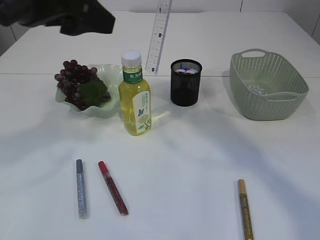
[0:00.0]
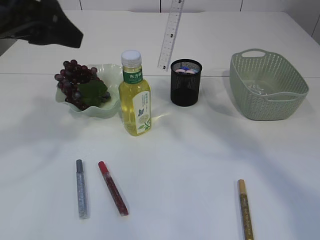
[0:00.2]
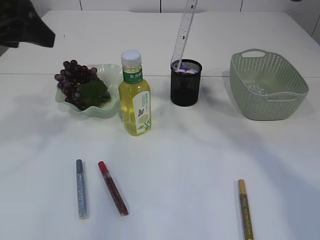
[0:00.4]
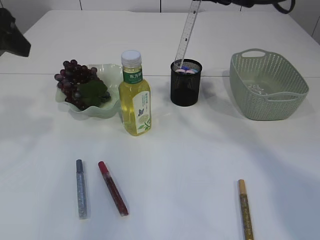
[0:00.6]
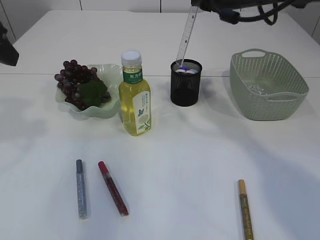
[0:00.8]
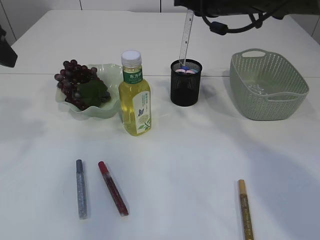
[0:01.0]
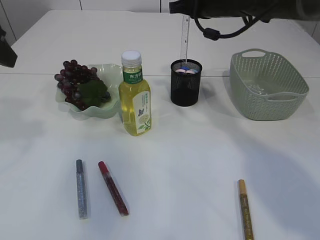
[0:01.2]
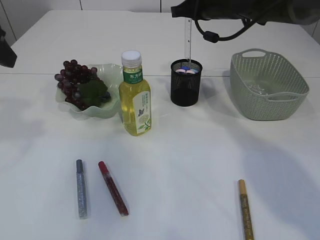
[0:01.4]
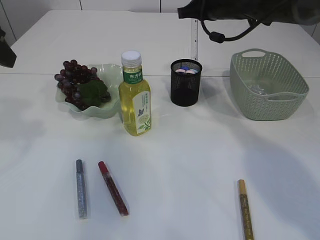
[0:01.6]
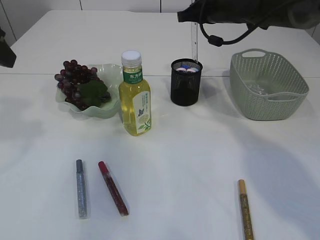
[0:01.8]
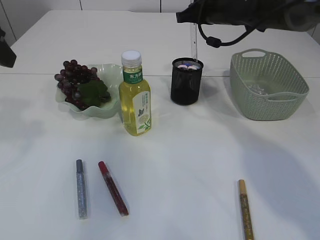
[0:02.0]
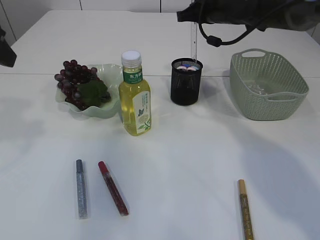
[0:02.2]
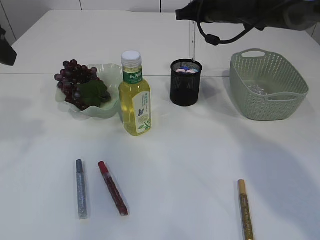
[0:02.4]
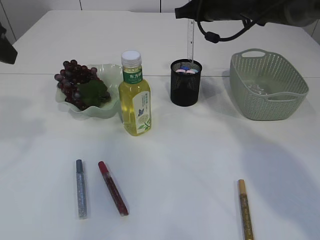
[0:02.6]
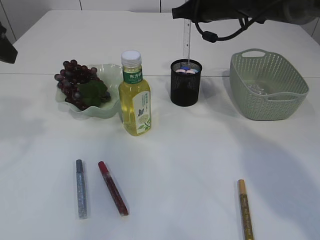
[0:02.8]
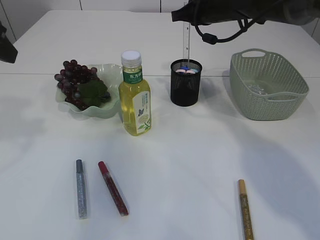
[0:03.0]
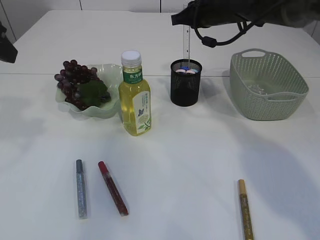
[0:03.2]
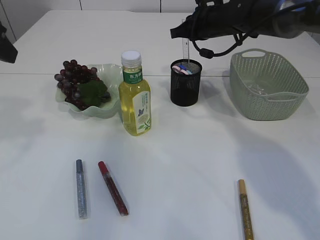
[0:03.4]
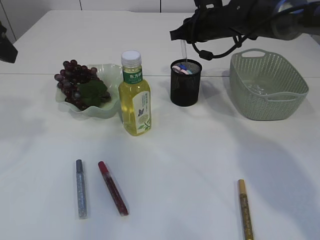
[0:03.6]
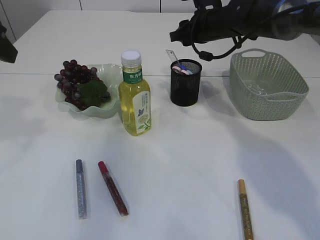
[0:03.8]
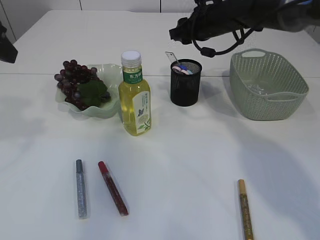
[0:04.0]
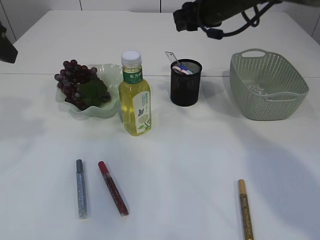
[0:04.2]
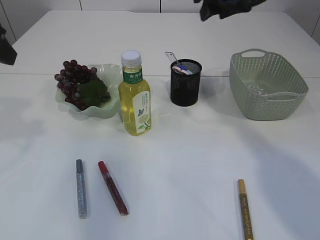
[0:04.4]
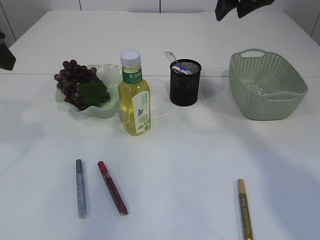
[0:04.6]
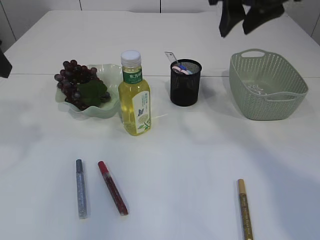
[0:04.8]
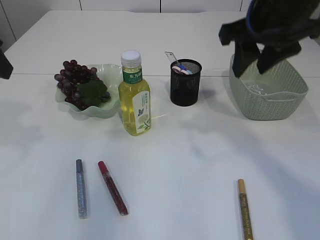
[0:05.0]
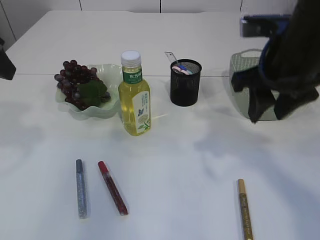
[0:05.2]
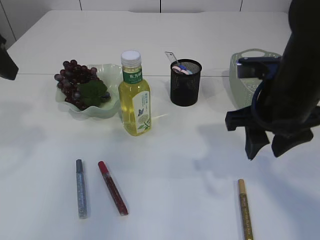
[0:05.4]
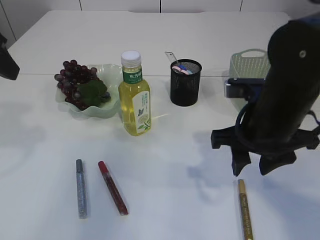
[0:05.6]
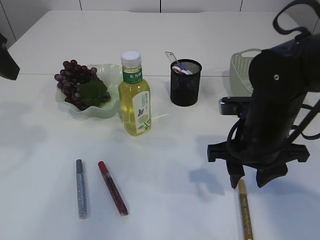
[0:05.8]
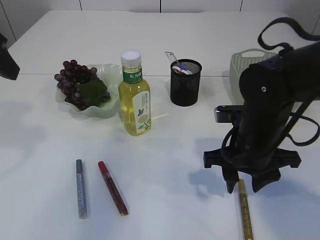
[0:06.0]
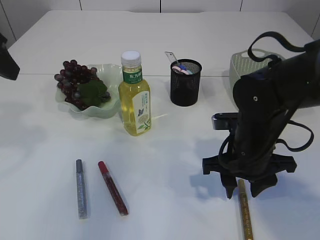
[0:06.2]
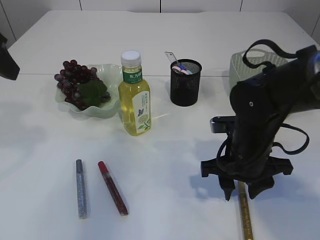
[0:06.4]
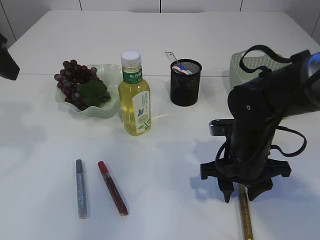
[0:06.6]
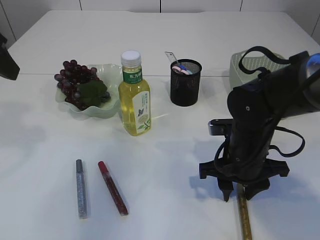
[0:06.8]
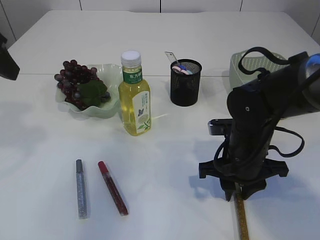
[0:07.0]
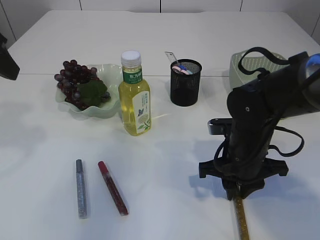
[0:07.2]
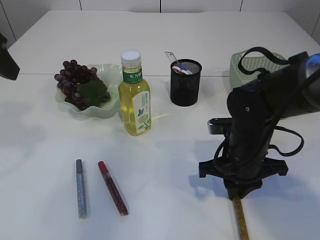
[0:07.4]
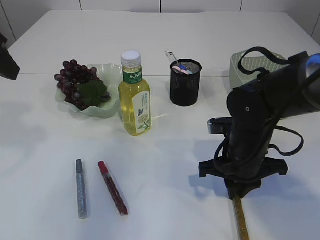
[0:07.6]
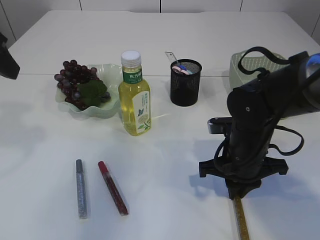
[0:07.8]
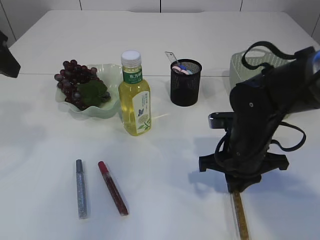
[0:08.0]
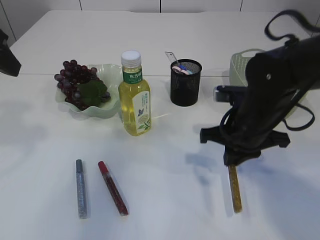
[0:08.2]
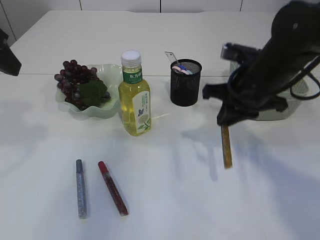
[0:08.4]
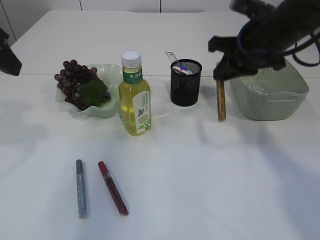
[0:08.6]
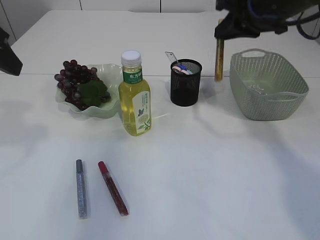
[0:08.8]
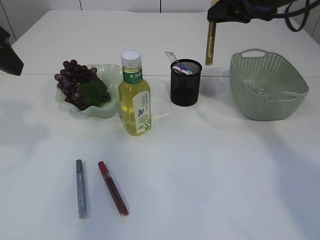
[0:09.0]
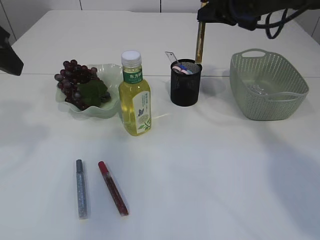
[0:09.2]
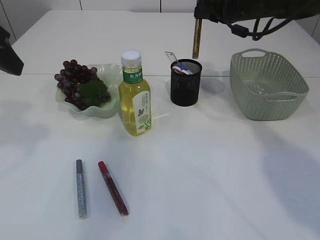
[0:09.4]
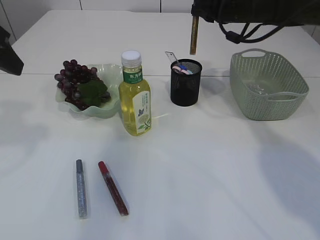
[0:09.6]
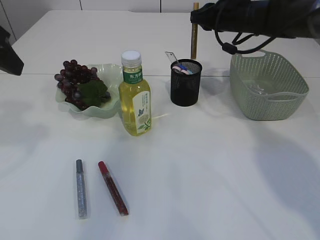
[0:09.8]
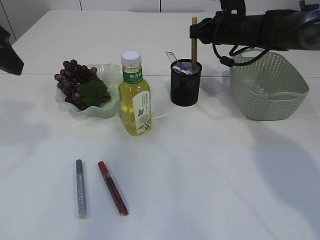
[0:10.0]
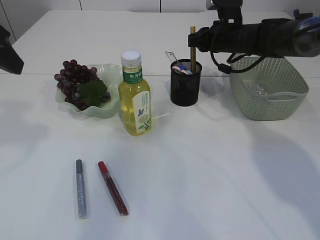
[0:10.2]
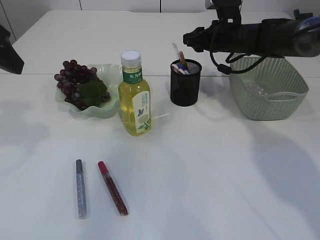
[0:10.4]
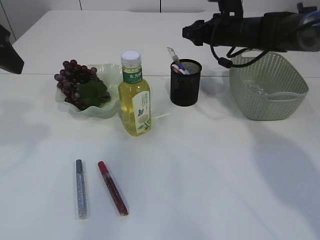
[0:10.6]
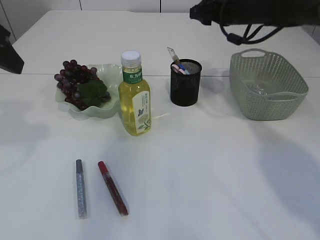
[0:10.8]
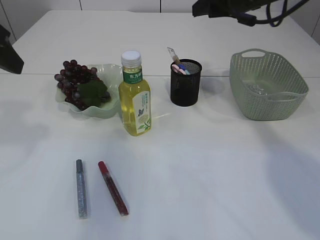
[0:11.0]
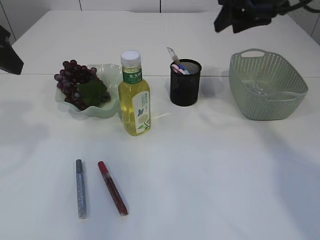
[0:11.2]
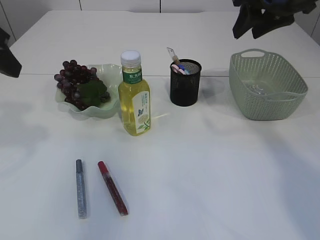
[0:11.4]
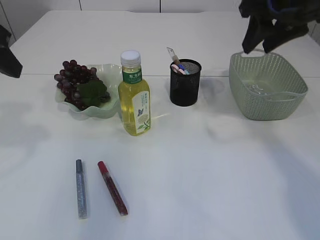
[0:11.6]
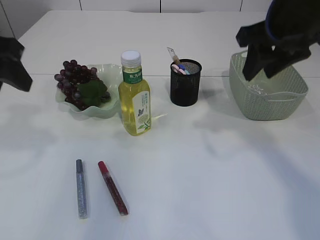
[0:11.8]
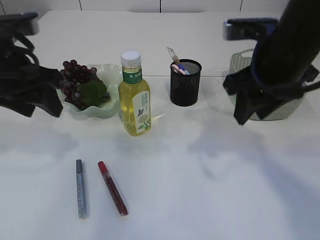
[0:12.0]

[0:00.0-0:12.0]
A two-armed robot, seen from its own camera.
Step, 0.0 to 4.0 s: Place the ruler into the pen holder.
Step, 4.2 to 8.2 s: Pick up the pen with right arm.
Step, 8.4 to 10.6 s: Place the pen into the pen holder.
0.0 to 1.6 s: The right gripper goes roughly 20 cm forward and downward. The left gripper is displaced to the left by roughly 10 cm.
1.6 to 3.0 s: The grippers move only a little.
3.0 to 4.4 s: The right gripper heads backward and upward, covering roughly 10 cm, and opens its fingers.
4.4 to 6.0 s: The right gripper goes approximately 25 cm downward and backward.
6.0 to 7.6 s: The right gripper closes up.
7.6 to 9.0 s: The right gripper goes some 25 cm upward and forward.
9.0 to 10.4 s: The right gripper travels downward and forward by some 15 cm, and opens.
10.4 to 12.0 s: The left gripper shifts roughly 5 cm downward. The right gripper goes approximately 25 cm backward and upward.

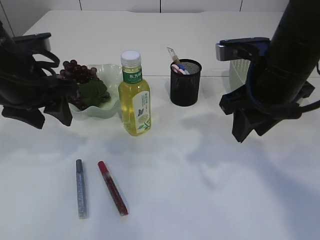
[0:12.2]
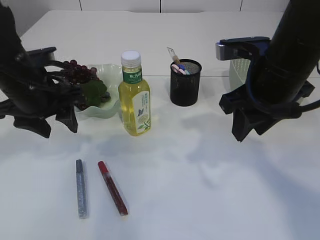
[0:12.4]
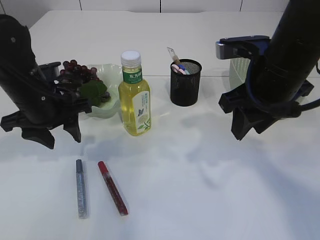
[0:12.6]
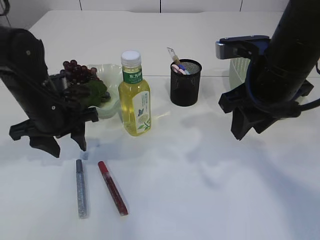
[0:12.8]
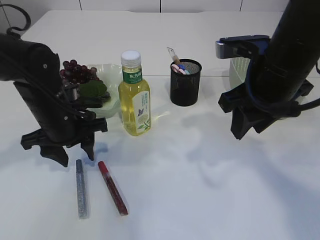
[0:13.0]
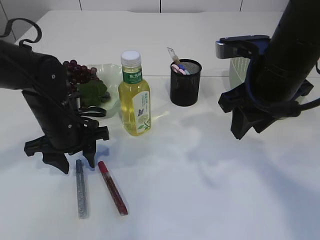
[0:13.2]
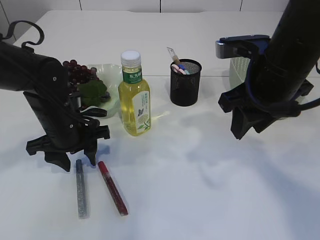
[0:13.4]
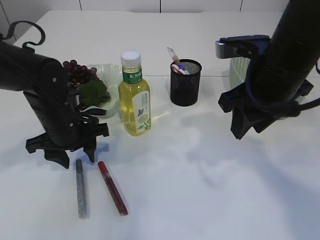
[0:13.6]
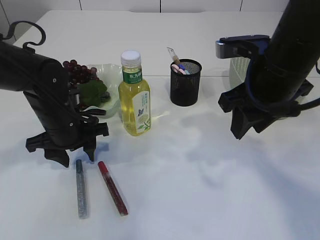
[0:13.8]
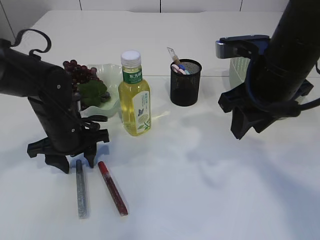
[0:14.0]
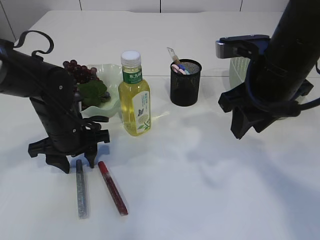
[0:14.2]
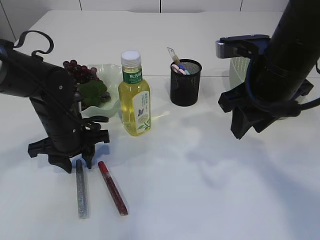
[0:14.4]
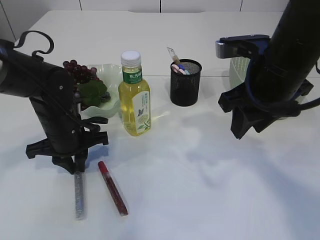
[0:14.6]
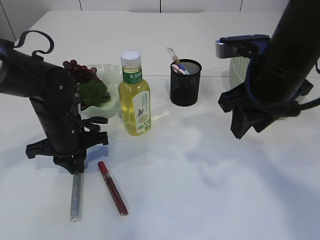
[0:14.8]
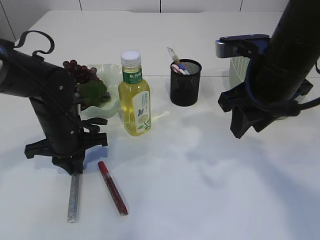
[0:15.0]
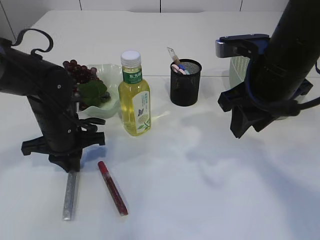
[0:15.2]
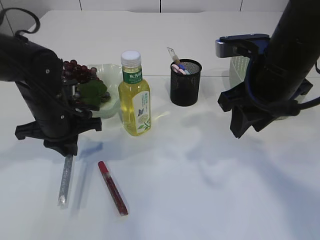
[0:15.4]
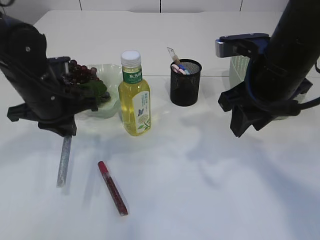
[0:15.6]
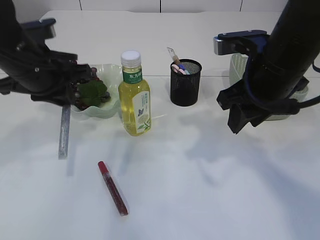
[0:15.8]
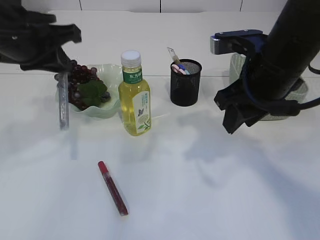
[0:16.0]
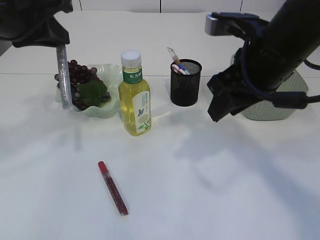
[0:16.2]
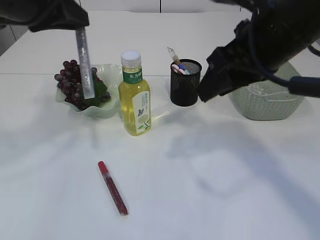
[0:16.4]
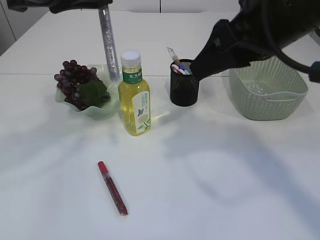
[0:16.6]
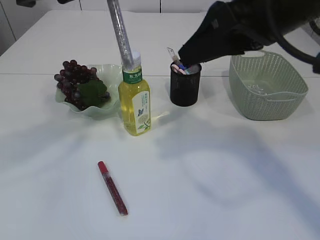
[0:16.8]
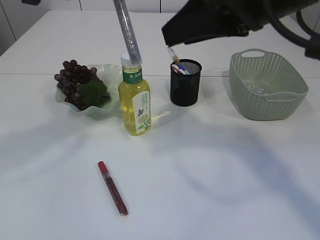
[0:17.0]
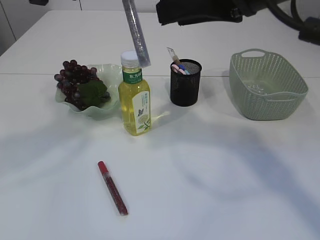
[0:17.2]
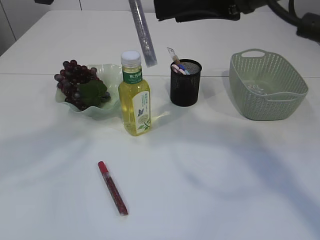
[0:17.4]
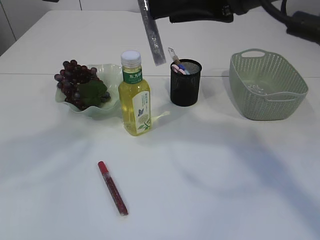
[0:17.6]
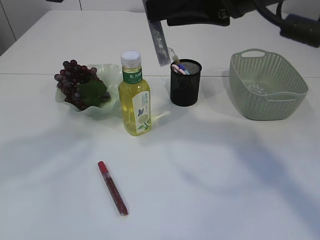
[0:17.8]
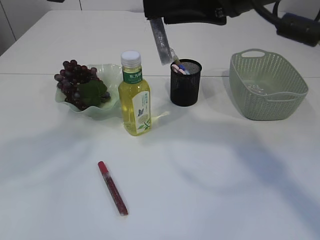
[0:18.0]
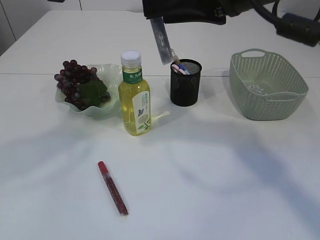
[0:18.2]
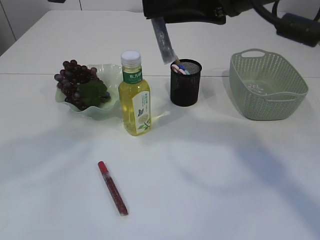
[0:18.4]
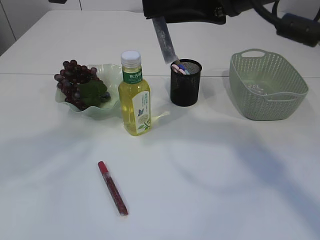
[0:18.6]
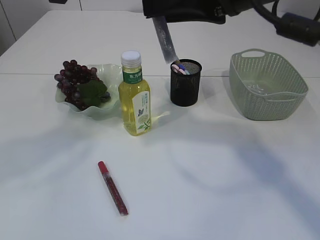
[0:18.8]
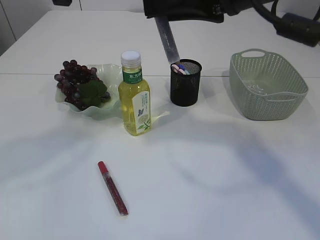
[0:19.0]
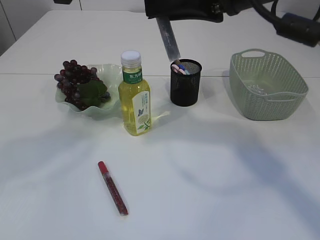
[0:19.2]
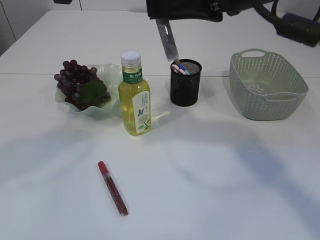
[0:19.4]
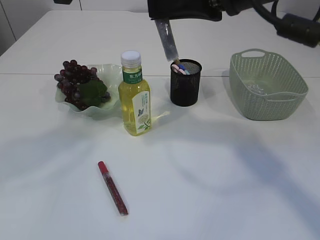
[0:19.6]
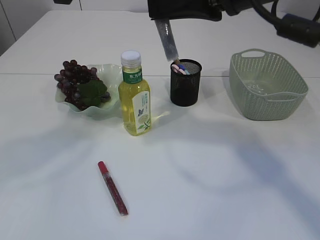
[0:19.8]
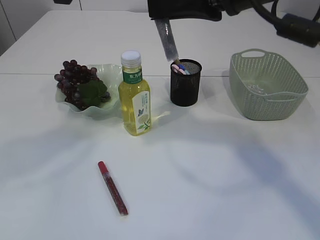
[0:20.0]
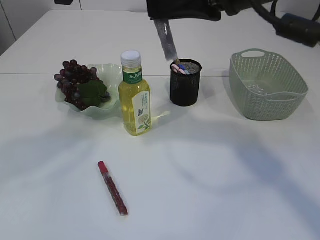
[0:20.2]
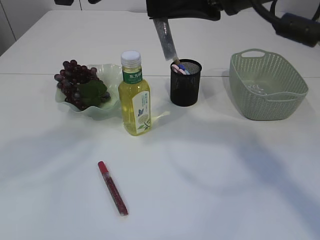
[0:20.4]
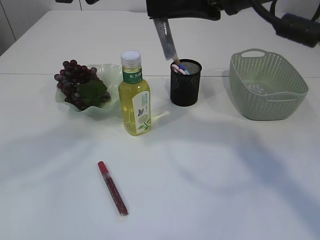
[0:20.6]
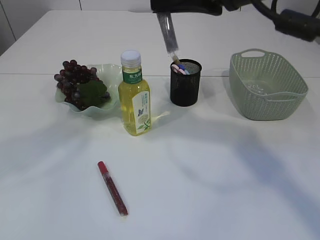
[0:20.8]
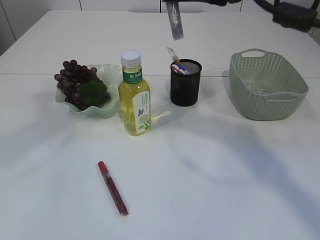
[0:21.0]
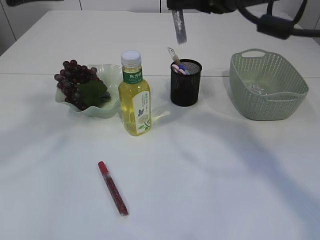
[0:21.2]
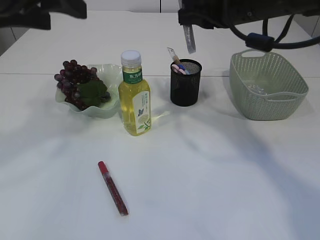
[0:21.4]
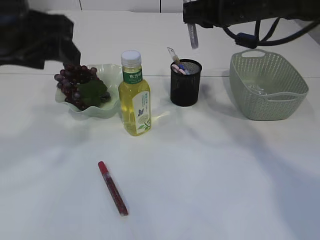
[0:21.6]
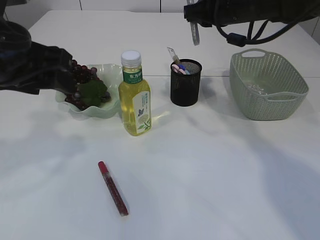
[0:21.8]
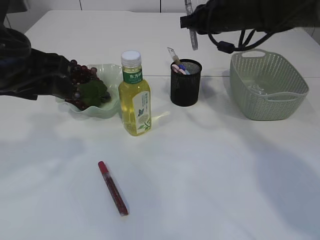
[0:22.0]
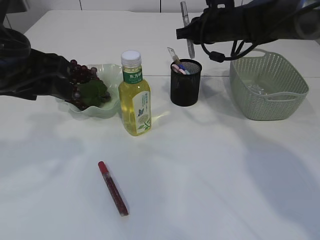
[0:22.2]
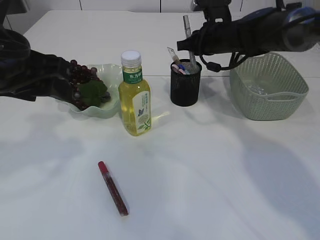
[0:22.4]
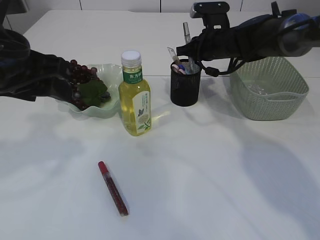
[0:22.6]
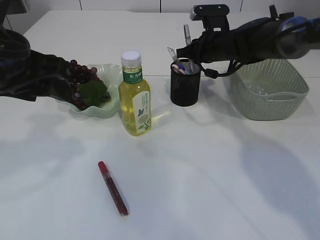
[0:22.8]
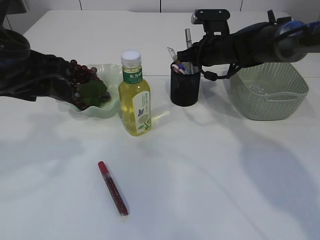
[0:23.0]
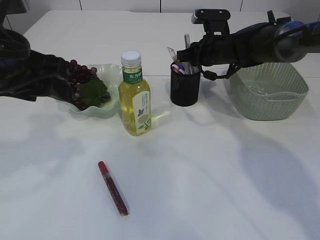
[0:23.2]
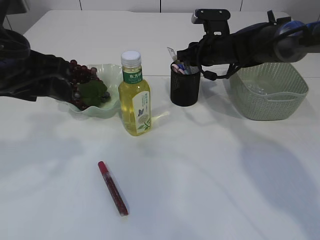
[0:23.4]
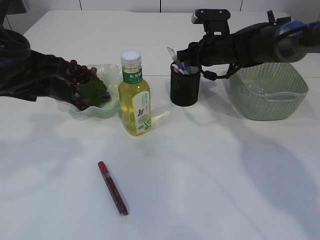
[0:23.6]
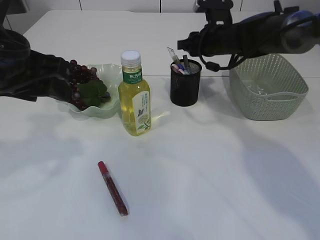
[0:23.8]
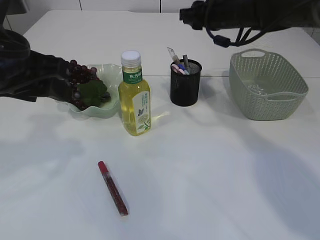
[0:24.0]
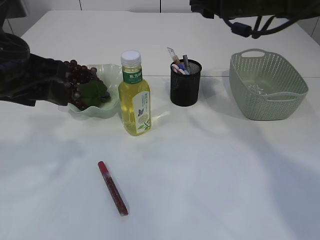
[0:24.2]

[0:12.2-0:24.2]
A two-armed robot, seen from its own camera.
Step, 12.2 to 15.8 s: Pick up the pen with left arm.
Step, 16.0 to 21.2 s: transfer the pen to the right arm.
Step, 21.4 to 23.8 s: Place the pen into the pen holder.
12.2 to 13.8 s: The left gripper travels downward by roughly 10 cm.
13.8 to 15.2 s: The left gripper closes.
15.2 to 16.6 s: The left gripper shifts some 25 cm upward. Meanwhile the right gripper moves upward, approximately 10 cm.
18.2 to 19.8 s: The right gripper closes up.
19.8 to 21.2 s: The left gripper shifts about 5 cm to the left, and opens its fingers.
21.2 to 22.6 s: The right gripper heads forward and downward, covering roughly 25 cm; the left gripper heads downward, covering some 10 cm.
22.6 to 24.2 s: The right gripper heads upward and backward, covering approximately 15 cm, and opens.
